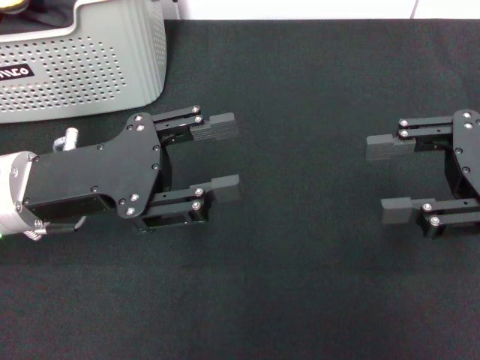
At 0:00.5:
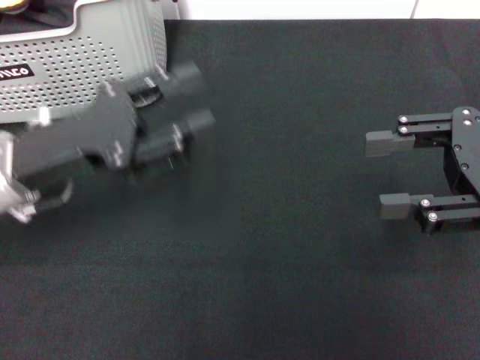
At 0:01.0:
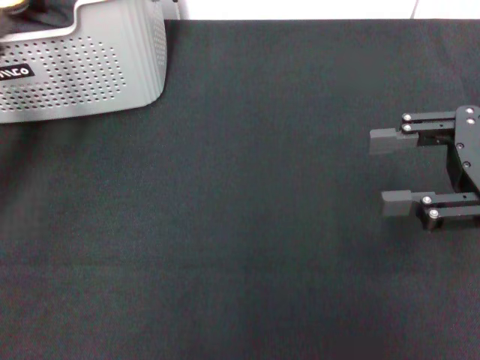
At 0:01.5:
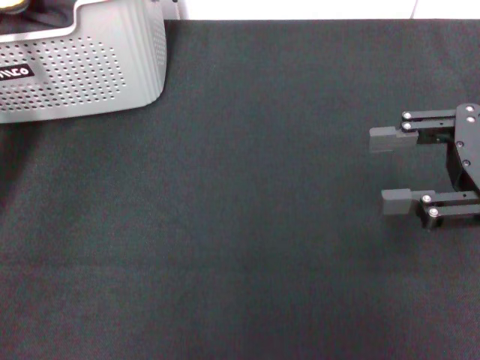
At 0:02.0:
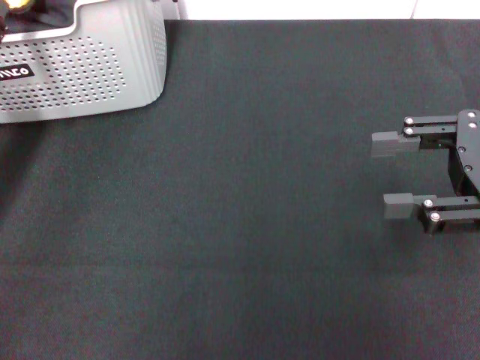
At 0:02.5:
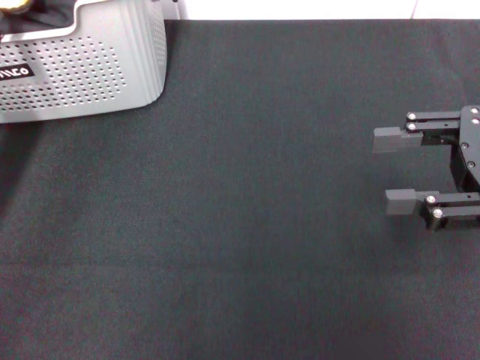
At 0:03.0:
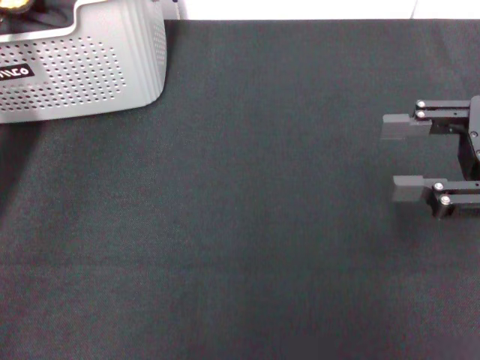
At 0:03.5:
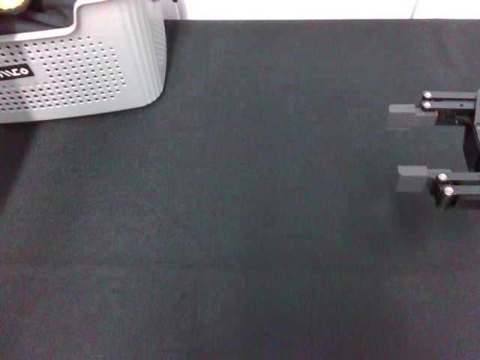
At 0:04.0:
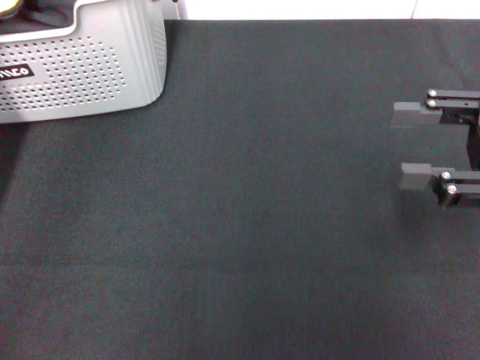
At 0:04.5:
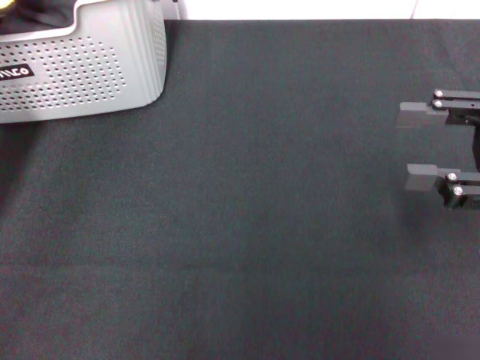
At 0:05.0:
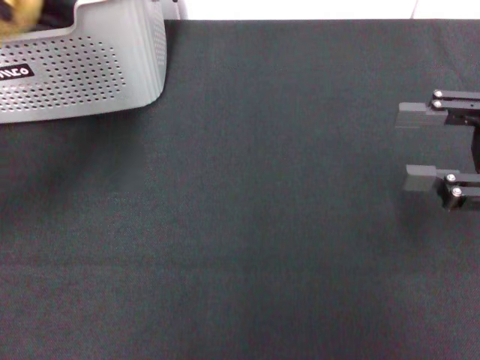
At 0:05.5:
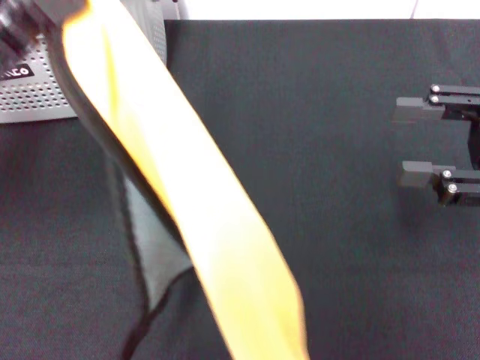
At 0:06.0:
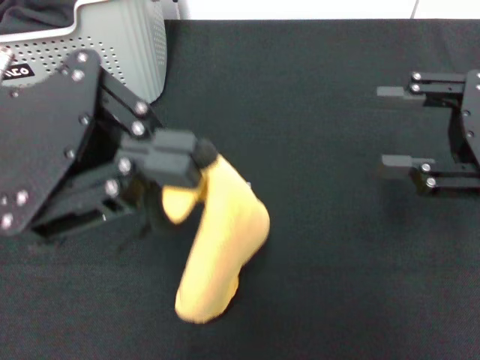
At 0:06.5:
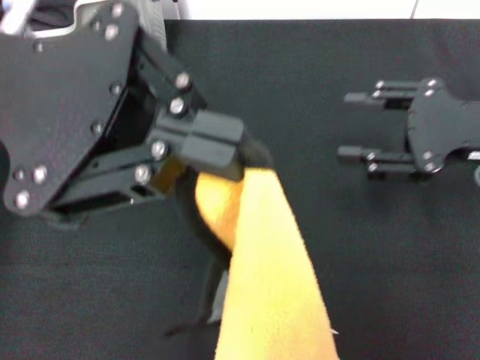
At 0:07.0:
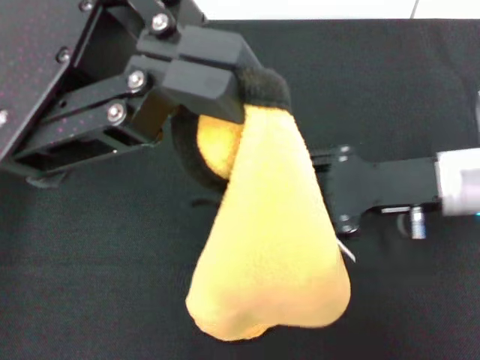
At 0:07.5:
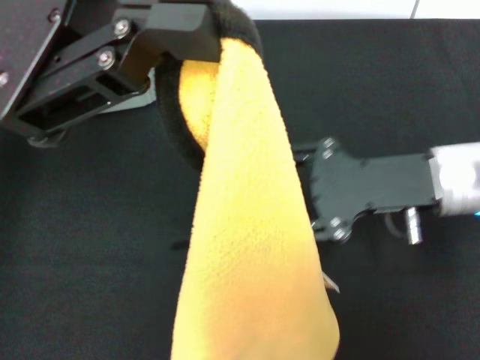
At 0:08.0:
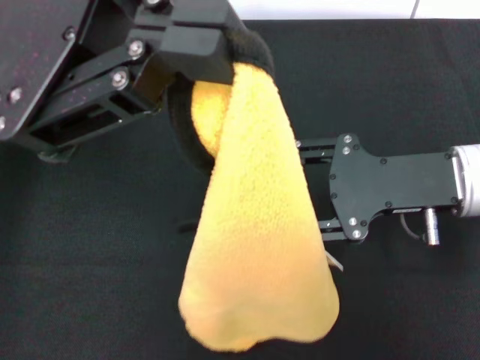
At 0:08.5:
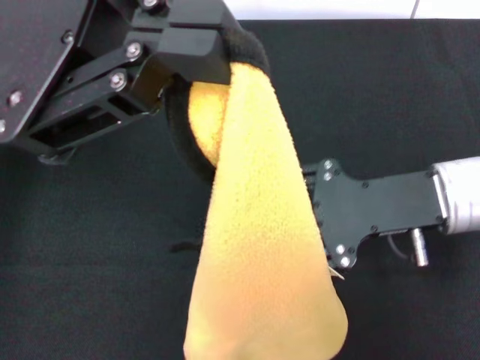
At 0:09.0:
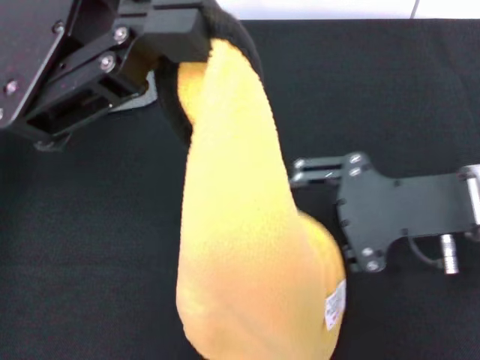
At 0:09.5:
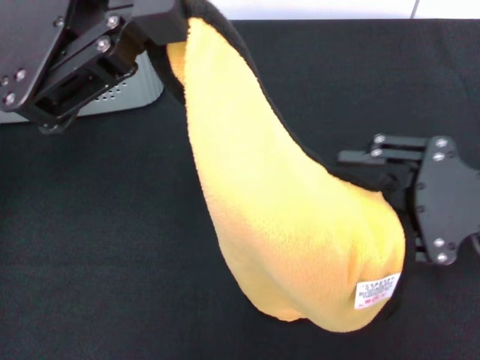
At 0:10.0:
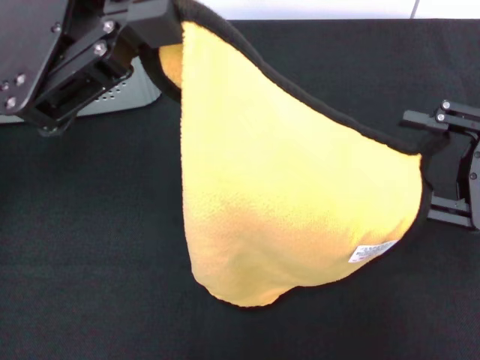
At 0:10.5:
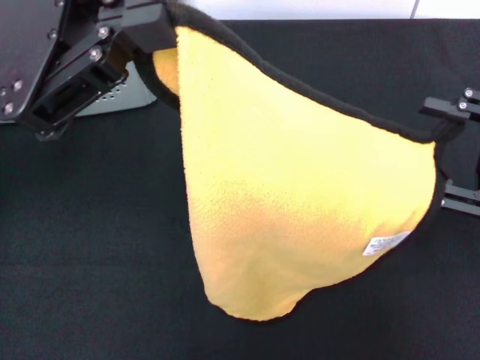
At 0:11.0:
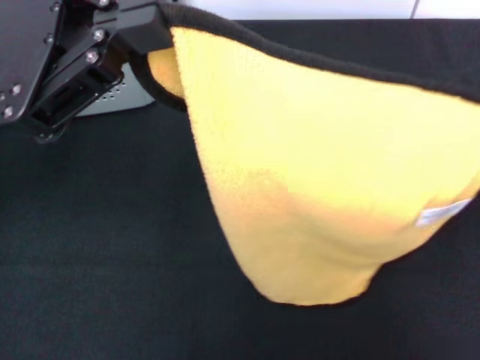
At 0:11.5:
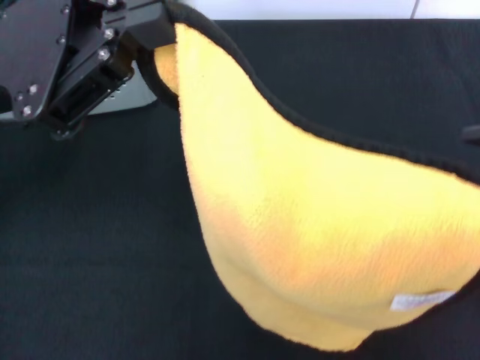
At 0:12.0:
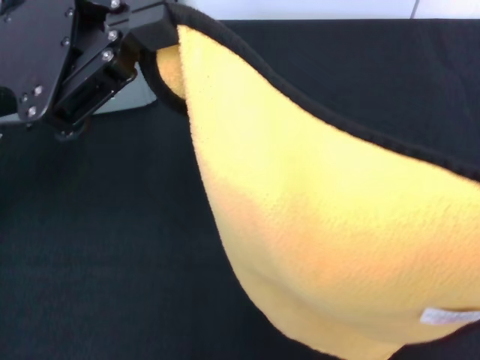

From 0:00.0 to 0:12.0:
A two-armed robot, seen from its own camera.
Task of the whole recording: pick up the towel from the storage box and lay it flat on the black tablecloth.
Step, from 0:00.0 to 0:04.0: Pick up a towel with the left gripper.
From 0:00.0 to 0:02.0: The left gripper shifts approximately 10 cm to the left.
From 0:02.0 to 0:04.0: The left gripper closes up.
From 0:04.0 to 0:06.0: The left gripper goes some 20 cm upward and to the right.
From 0:06.0 to 0:08.0: The left gripper shifts by some 5 cm; the right gripper moves to the left and downward, roughly 10 cm.
From 0:08.0 to 0:10.0: The right gripper goes some 10 cm to the right. Meanwhile the left gripper ends up roughly 5 cm from where it was.

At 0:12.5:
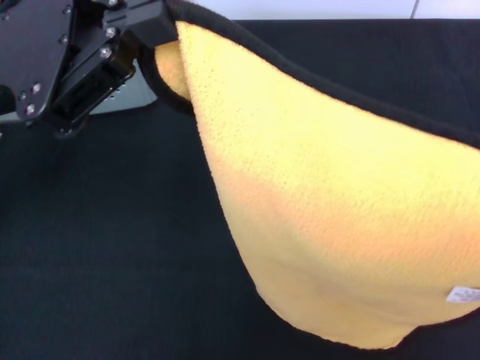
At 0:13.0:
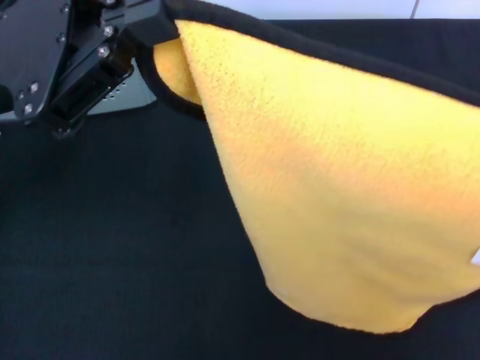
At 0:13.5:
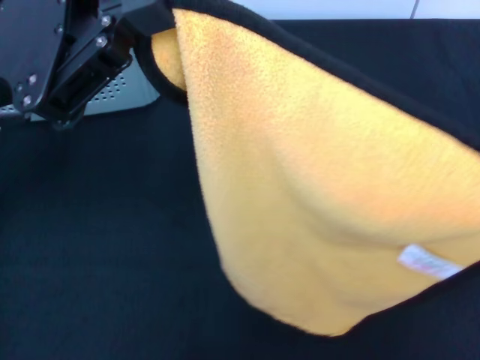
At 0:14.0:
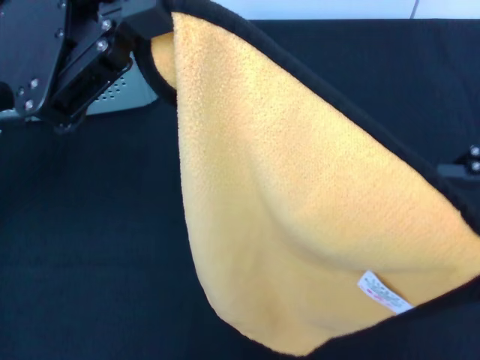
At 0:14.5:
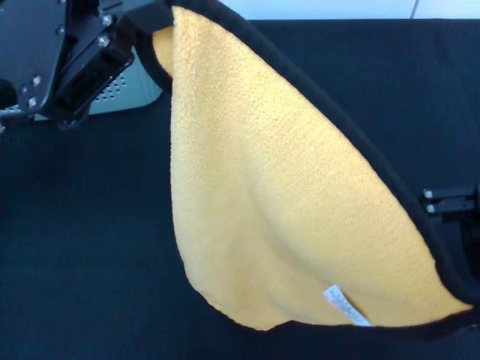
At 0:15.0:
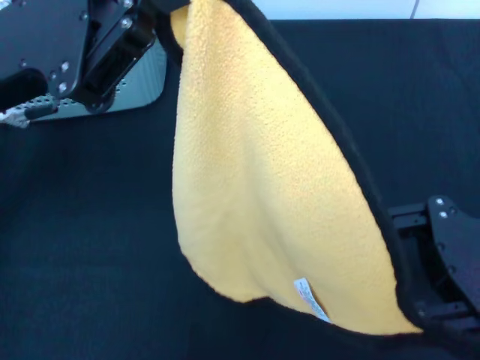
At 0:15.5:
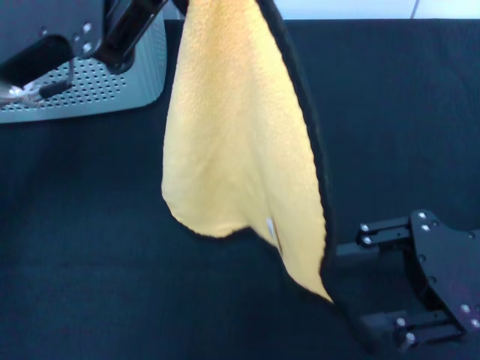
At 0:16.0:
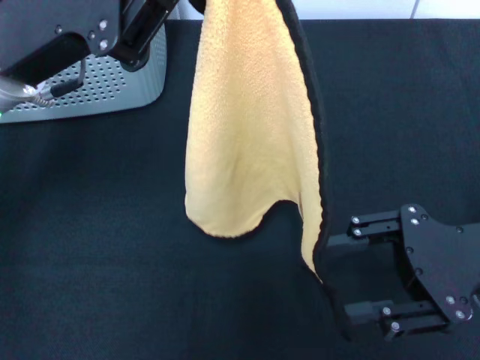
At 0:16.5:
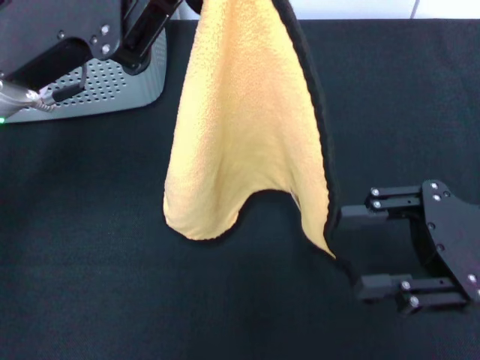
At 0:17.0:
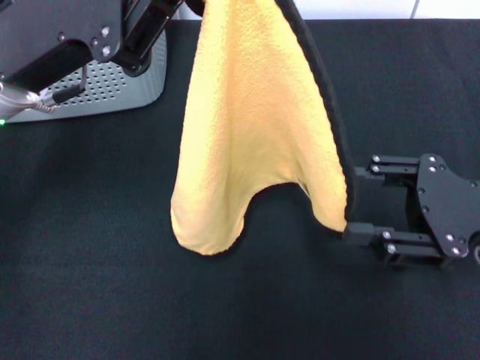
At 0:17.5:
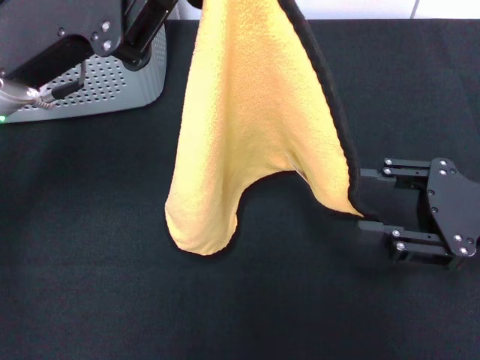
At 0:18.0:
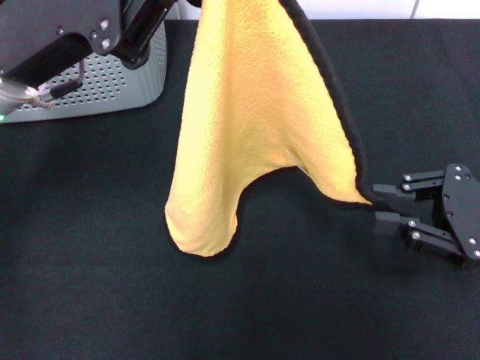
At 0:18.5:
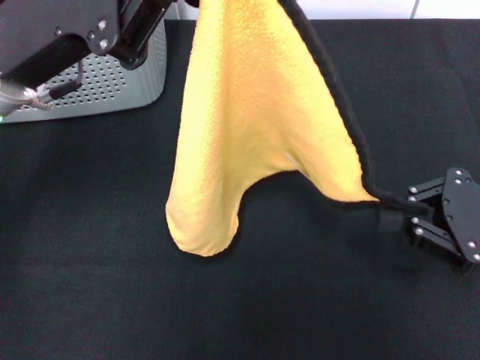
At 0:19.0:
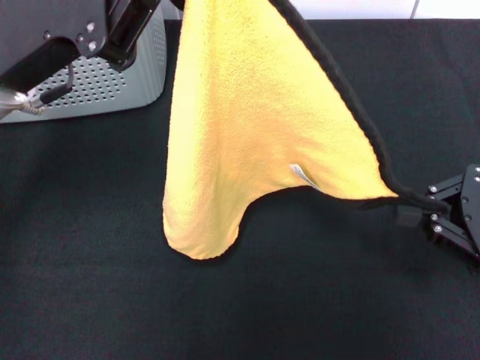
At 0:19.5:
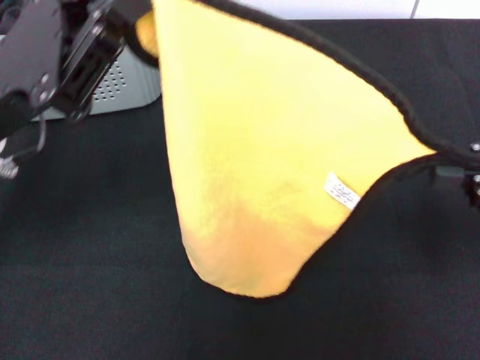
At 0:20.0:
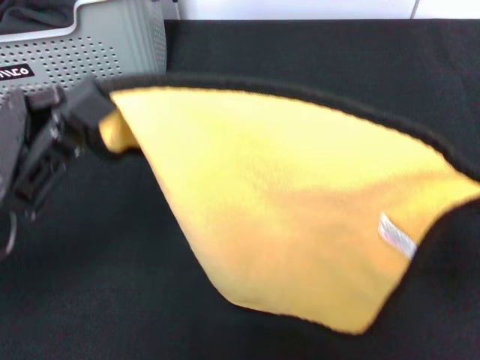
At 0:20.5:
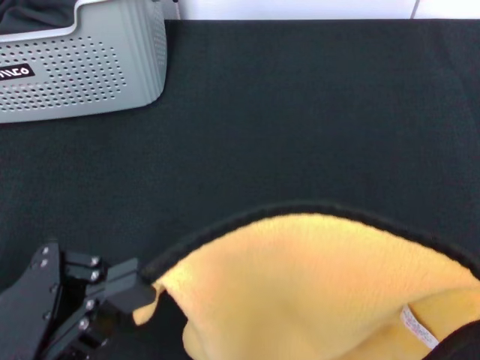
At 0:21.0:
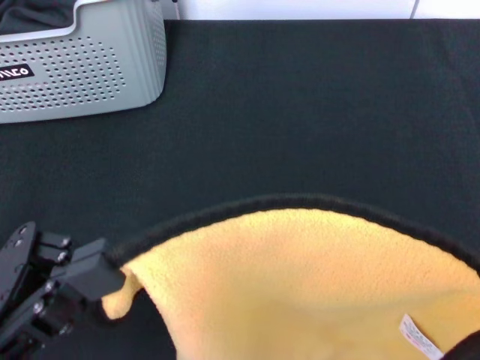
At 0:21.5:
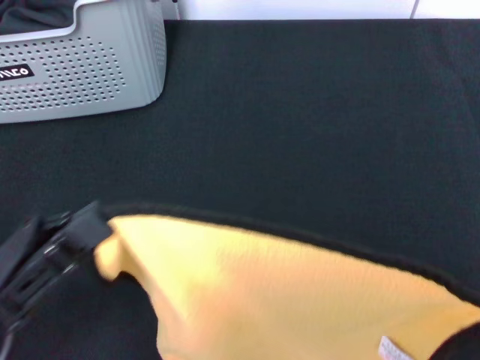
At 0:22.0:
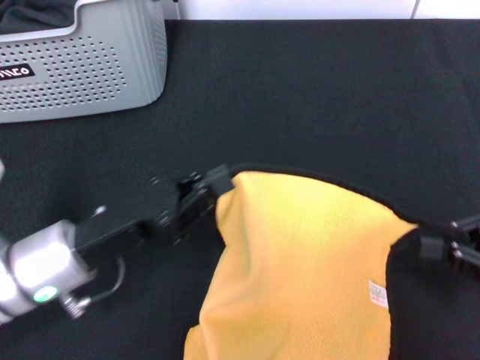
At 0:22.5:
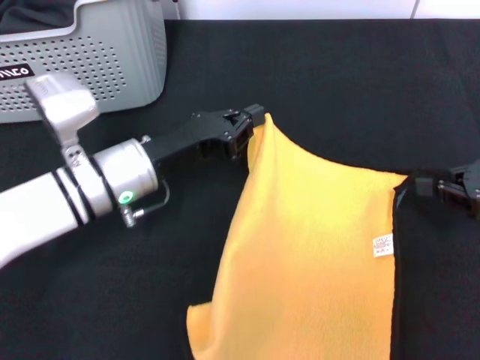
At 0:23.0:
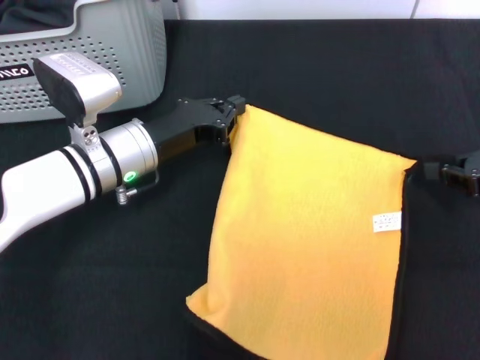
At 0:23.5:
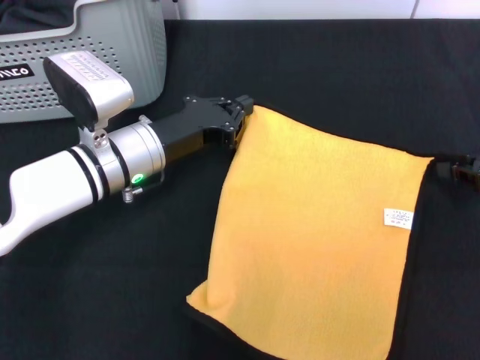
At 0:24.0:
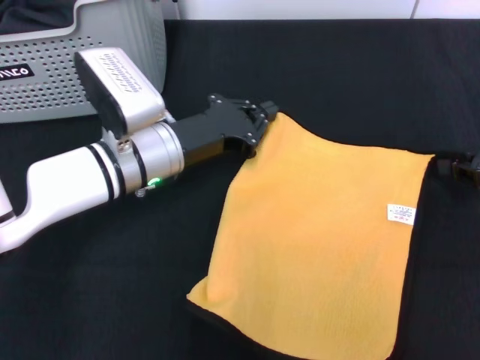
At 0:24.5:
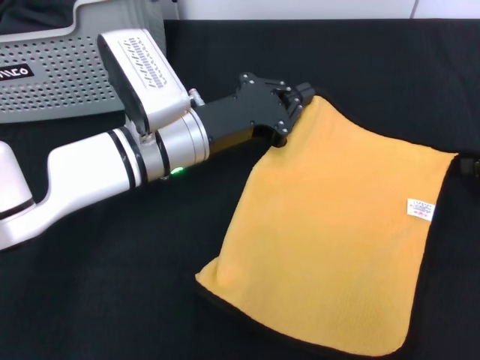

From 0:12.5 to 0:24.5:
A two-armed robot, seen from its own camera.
Task of the whole recording: pick up the towel from the storage box and lay it flat on the black tablecloth.
Step, from 0:12.5 to 0:19.0: Spread the towel flat with the left gripper.
From 0:12.5 to 0:14.5: The right gripper shifts by approximately 5 cm.
From 0:16.5 to 0:18.5: The right gripper closes.
From 0:18.5 to 0:20.5: The left gripper moves backward and downward, about 20 cm, while the right gripper goes approximately 15 cm backward, upward and to the right.
From 0:20.5 to 0:22.5: The right gripper moves forward and downward, approximately 15 cm, while the left gripper is displaced forward and to the right by some 20 cm.
From 0:22.5 to 0:24.5: The left gripper shifts by roughly 5 cm.

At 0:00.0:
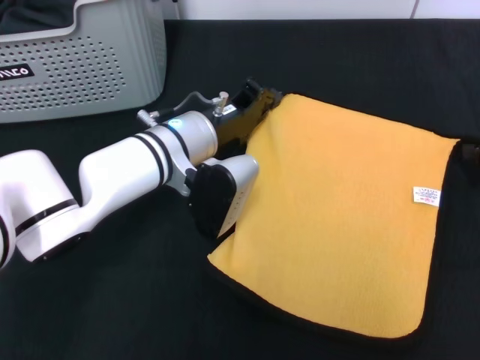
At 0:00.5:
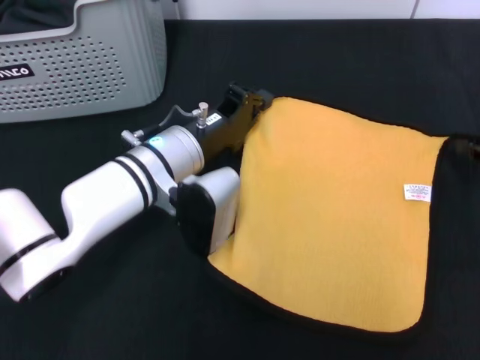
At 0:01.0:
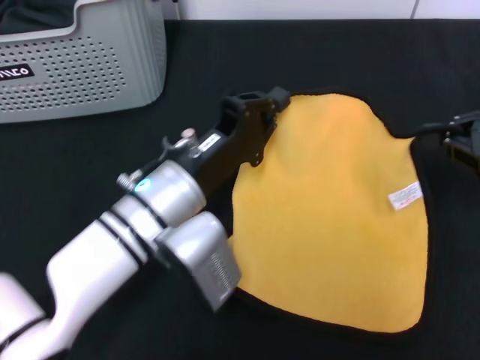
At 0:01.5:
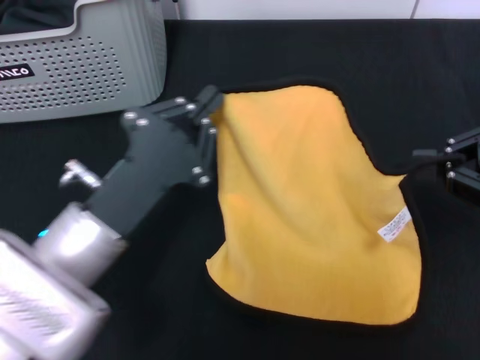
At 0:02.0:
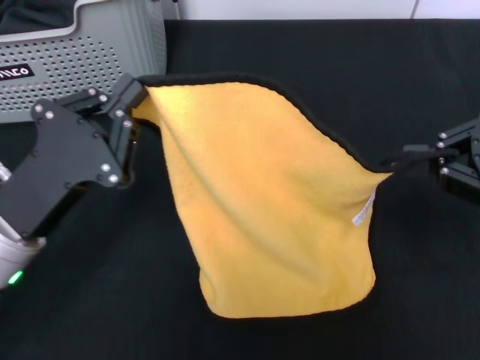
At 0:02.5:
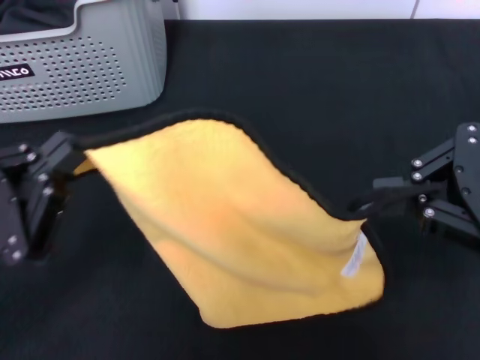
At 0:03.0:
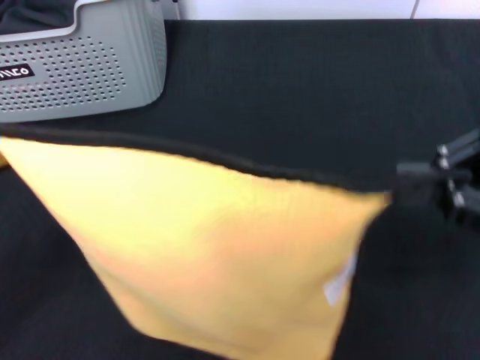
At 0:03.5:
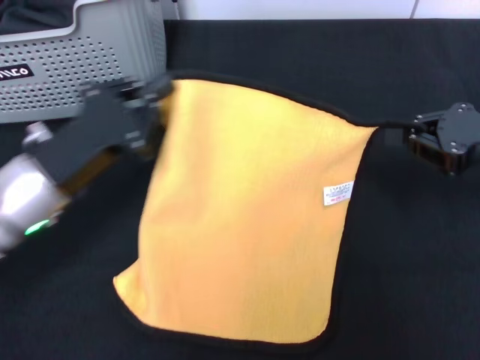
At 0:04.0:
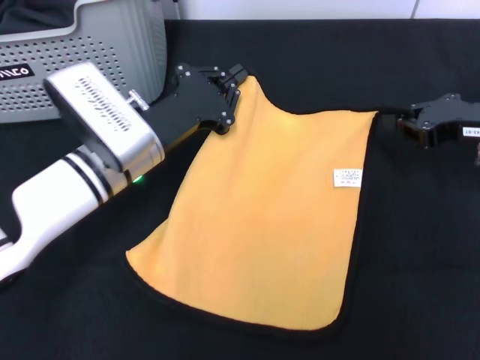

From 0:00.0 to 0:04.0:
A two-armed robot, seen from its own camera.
Task of the whole recording: pick up the towel from the storage box and lay it flat on the black tablecloth.
From 0:00.0 to 0:02.0: The left gripper goes roughly 20 cm backward and to the left, while the right gripper travels upward, backward and to the left by approximately 15 cm.
From 0:02.0 to 0:04.0: The right gripper goes about 10 cm forward and downward, while the left gripper goes roughly 15 cm forward and to the right.
